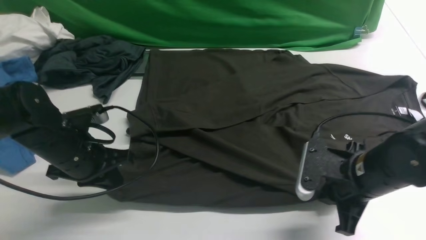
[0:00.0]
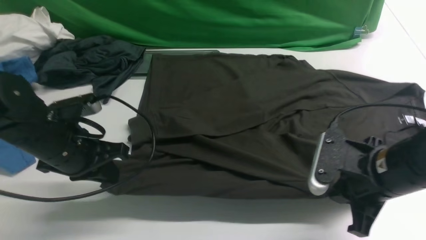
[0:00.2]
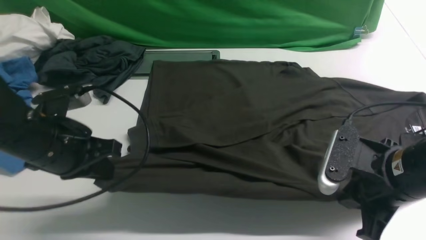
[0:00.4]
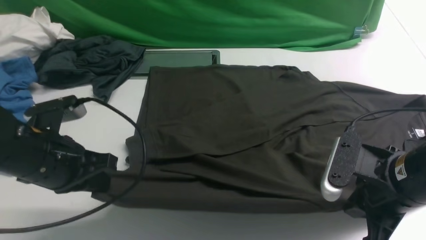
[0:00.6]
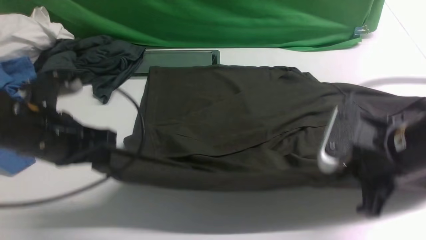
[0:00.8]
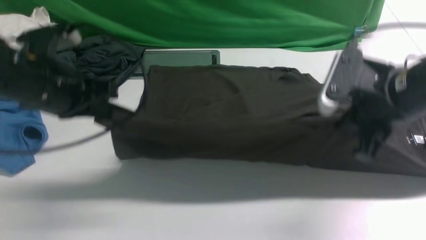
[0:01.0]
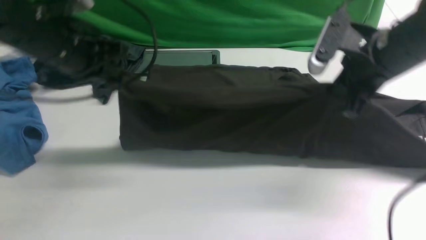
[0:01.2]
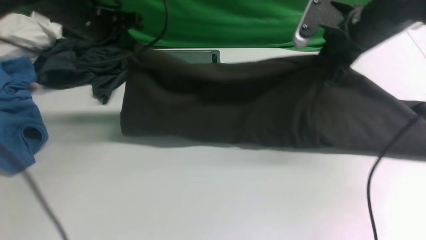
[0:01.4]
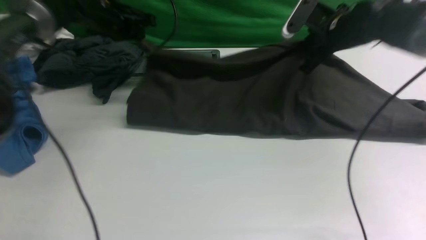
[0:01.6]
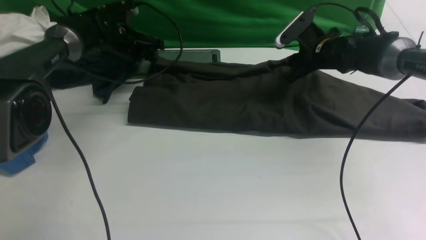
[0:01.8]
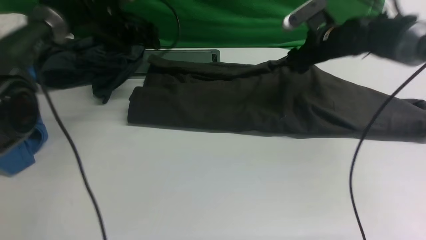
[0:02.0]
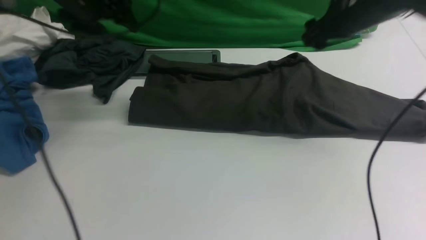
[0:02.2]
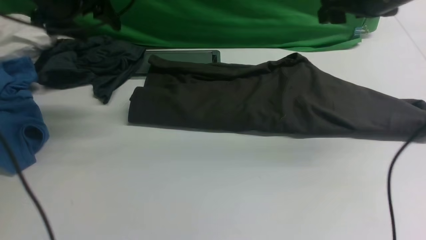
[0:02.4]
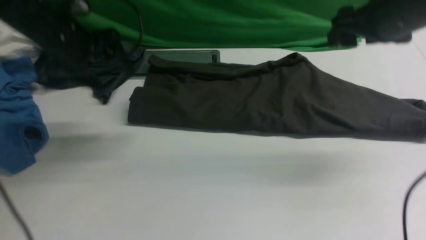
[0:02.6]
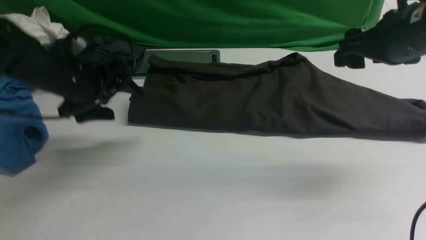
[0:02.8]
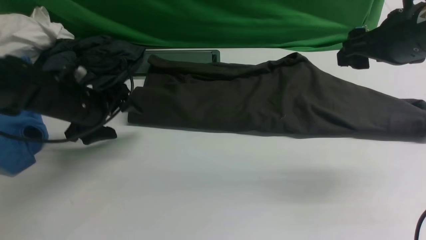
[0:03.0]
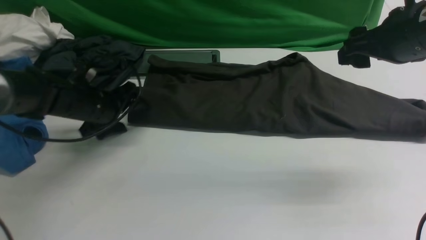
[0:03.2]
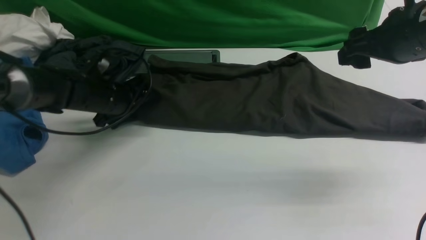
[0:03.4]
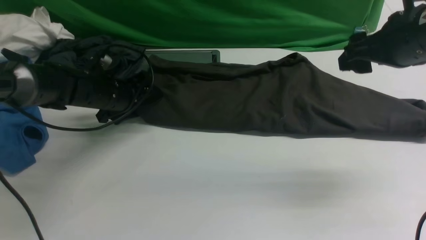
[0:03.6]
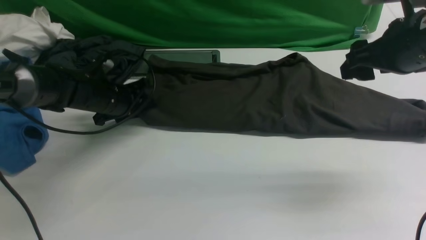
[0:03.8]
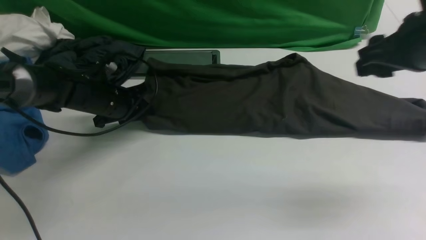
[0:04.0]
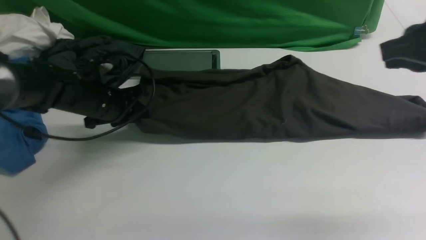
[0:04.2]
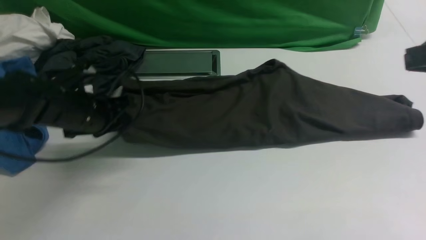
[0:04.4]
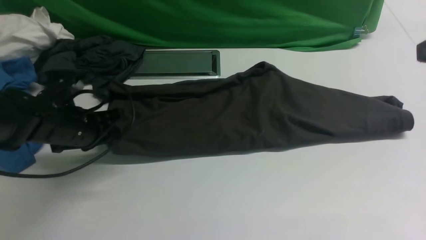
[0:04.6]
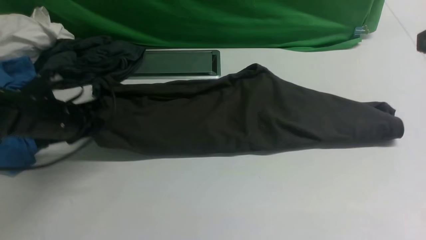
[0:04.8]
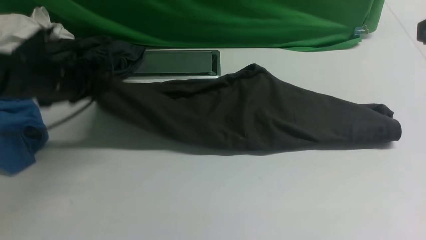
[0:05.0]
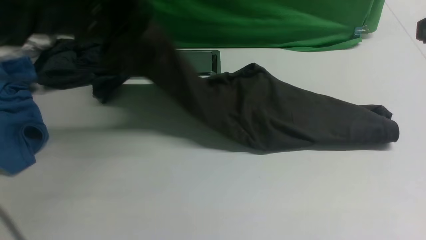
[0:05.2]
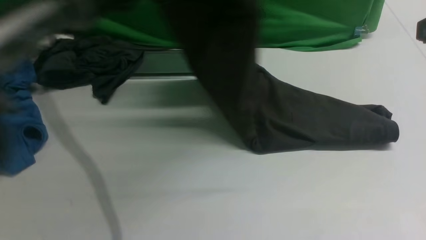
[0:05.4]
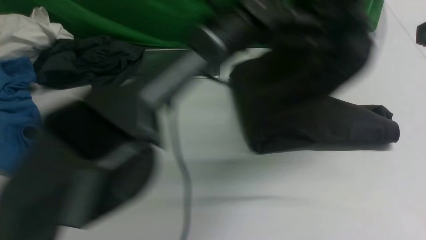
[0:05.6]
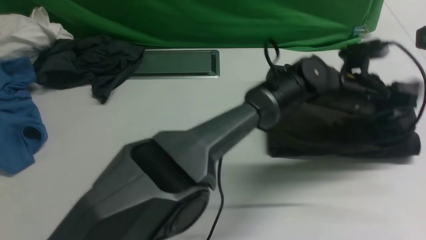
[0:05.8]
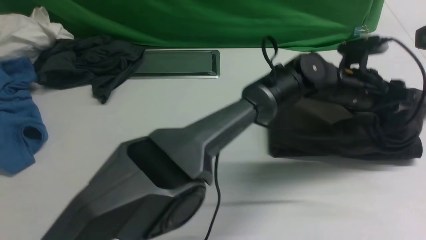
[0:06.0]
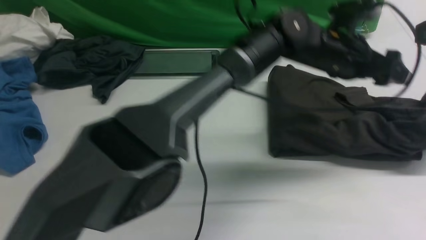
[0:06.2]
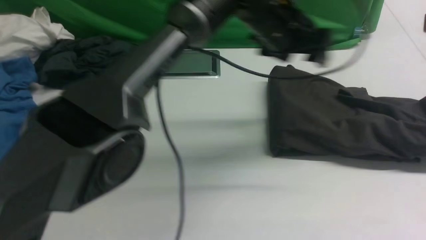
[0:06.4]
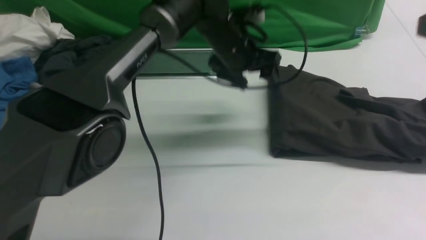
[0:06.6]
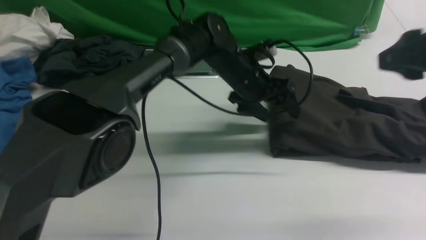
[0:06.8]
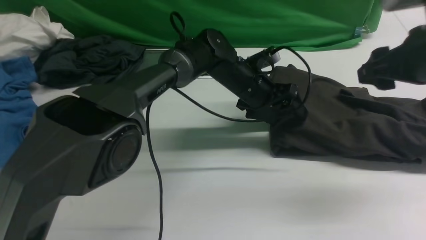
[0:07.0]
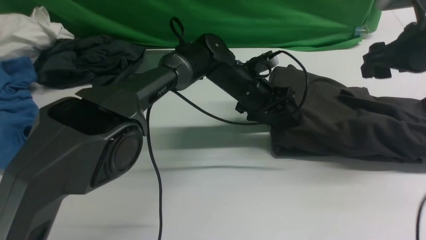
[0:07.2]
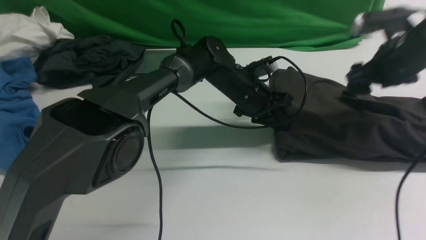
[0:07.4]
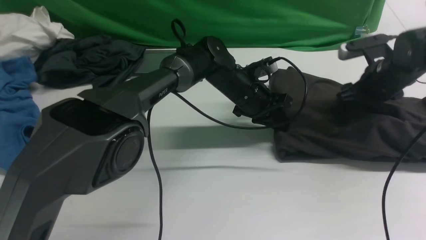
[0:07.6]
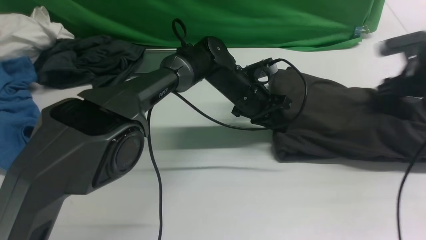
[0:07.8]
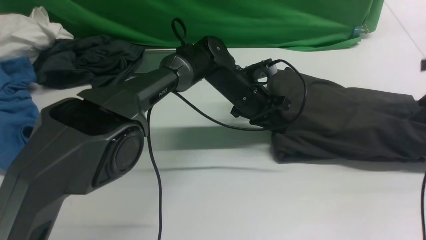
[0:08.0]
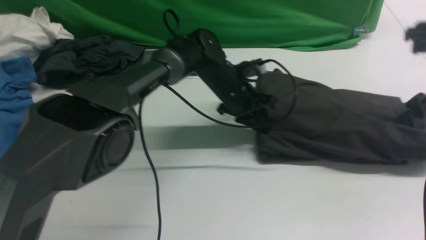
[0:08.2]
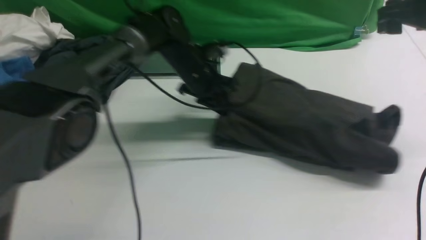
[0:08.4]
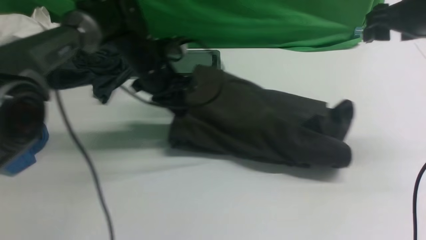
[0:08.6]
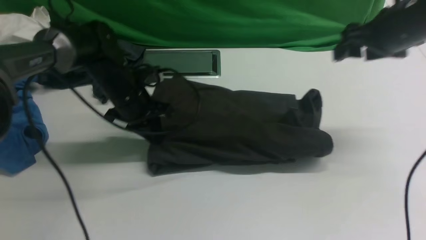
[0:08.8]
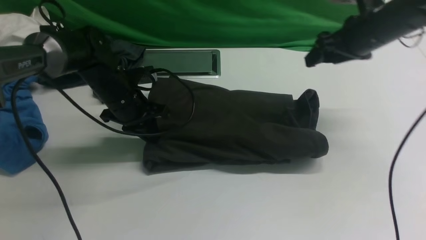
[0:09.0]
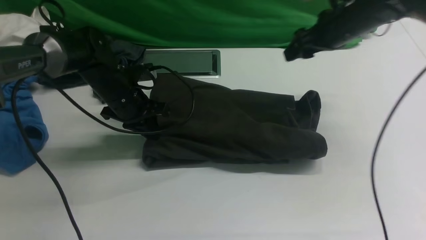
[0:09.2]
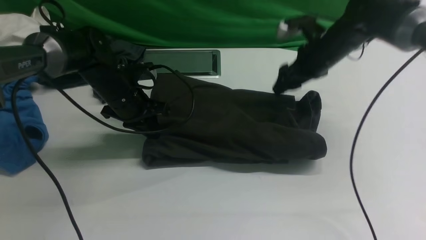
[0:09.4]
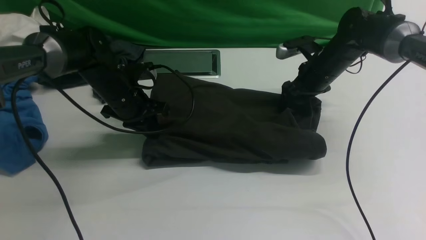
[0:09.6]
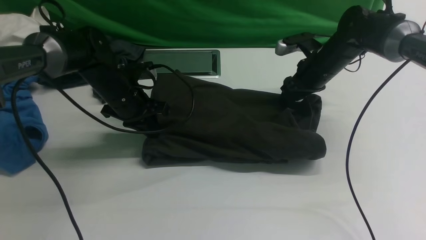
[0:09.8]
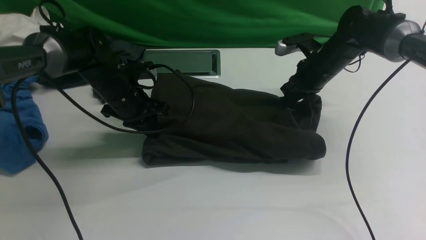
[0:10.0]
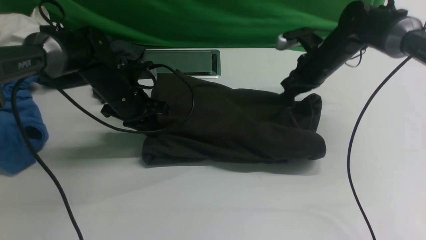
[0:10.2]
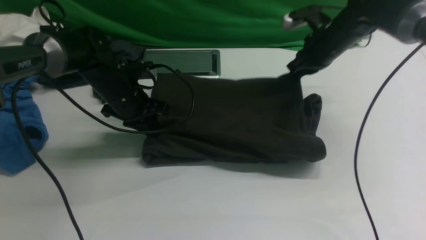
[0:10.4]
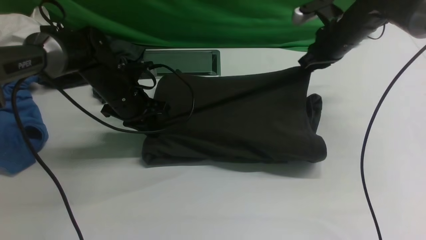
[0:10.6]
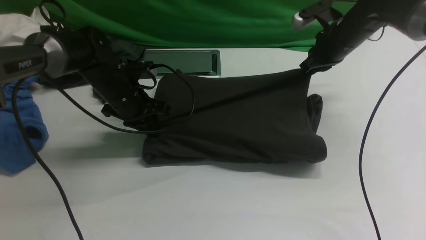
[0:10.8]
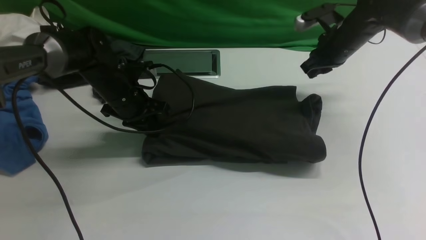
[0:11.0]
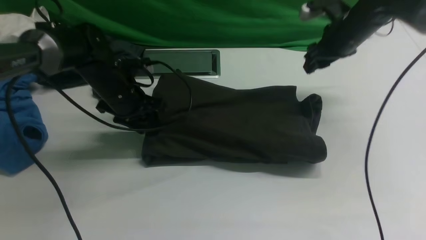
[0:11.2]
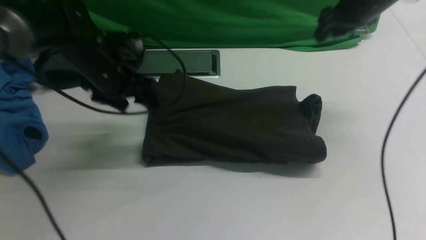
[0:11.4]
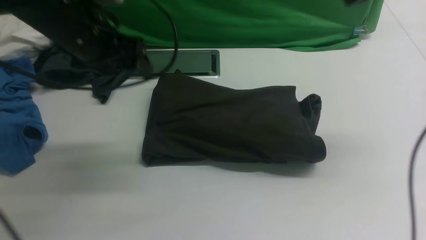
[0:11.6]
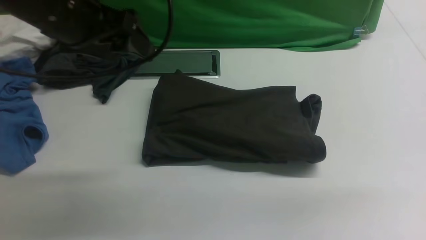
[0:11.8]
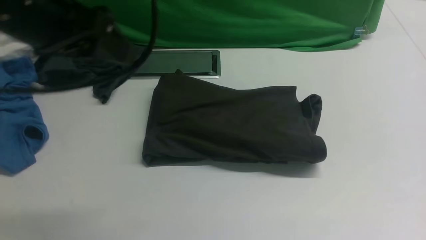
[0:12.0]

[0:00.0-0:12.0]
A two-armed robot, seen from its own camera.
Step, 0:00.4 to 0:02.4: use both arms to drag the lower edge of the fabric forward and fold it over the upper edge.
Step, 0:02.6 to 0:04.8: Hold the left edge of the fabric with your left arm.
Step, 0:05.0 to 0:06.0: Drag the left edge of the fabric to the left with your left arm and fold it to the right edge.
0:00.0 to 0:01.6: The two grippers go approximately 25 cm forward.
0:01.6 to 0:03.0: The right gripper travels backward and upward by approximately 20 cm, and opens its fingers. Meanwhile the left gripper heads backward, covering approximately 15 cm, and opens up.
0:03.0 to 0:04.4: The left gripper closes. The right gripper moves backward and upward, roughly 10 cm, and closes its fingers.
0:04.4 to 0:06.0: The left gripper shifts approximately 40 cm to the right, and opens its fingers.
0:06.0 to 0:07.6: The left gripper shifts approximately 15 cm to the left and downward, and closes up. The right gripper travels downward and forward by some 30 cm, and opens its fingers.
0:07.6 to 0:09.0: The right gripper travels to the left and upward by roughly 10 cm, while the left gripper shifts approximately 20 cm to the left.
0:09.0 to 0:10.4: The right gripper goes some 5 cm downward, and closes up.
0:10.4 to 0:12.0: The right gripper heads backward and upward, covering roughly 35 cm, and opens, then closes again. Meanwhile the left gripper goes some 30 cm upward and backward, and opens its fingers.

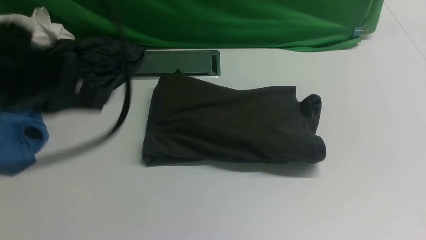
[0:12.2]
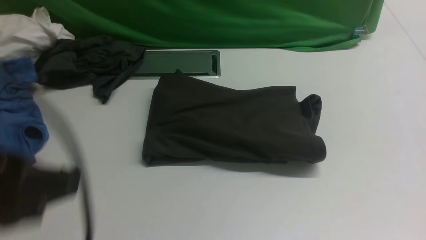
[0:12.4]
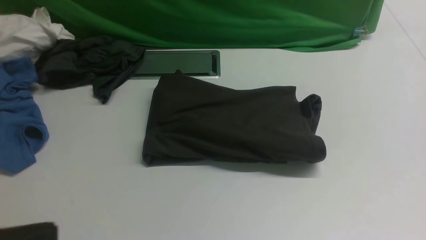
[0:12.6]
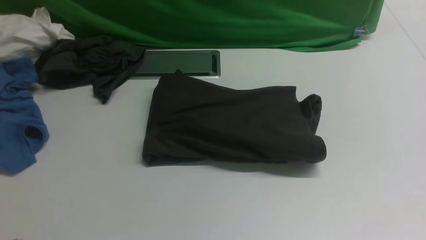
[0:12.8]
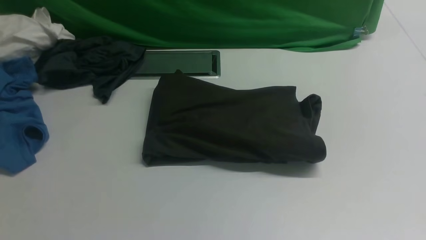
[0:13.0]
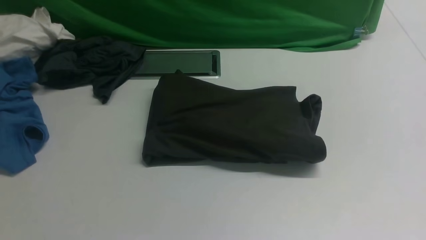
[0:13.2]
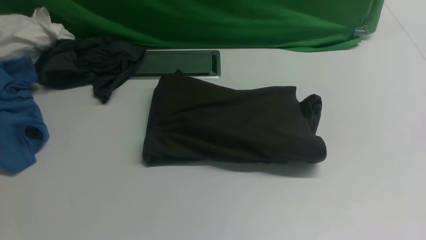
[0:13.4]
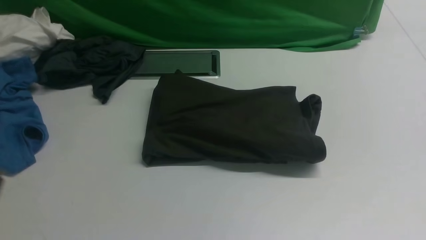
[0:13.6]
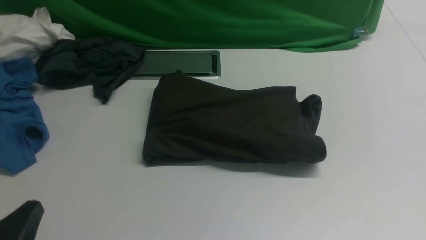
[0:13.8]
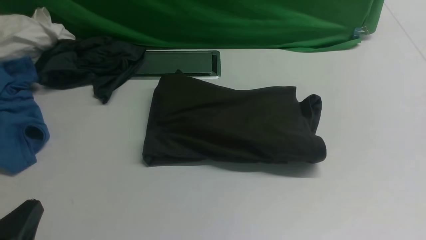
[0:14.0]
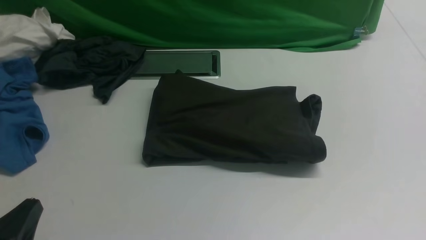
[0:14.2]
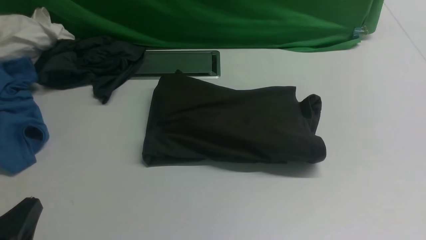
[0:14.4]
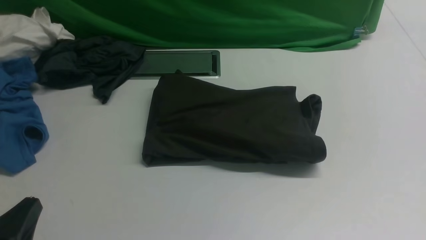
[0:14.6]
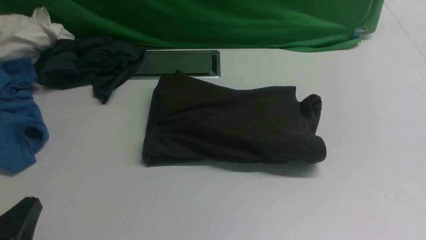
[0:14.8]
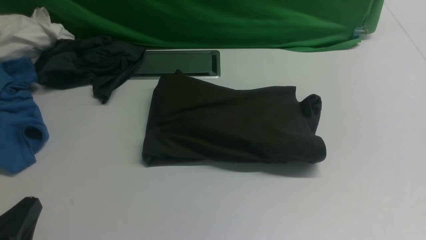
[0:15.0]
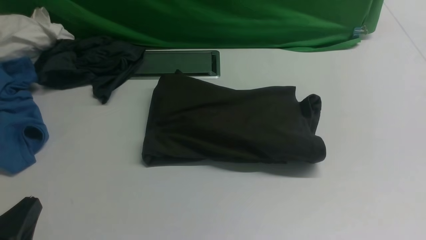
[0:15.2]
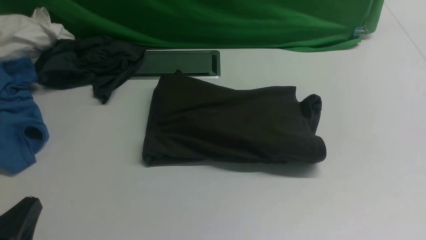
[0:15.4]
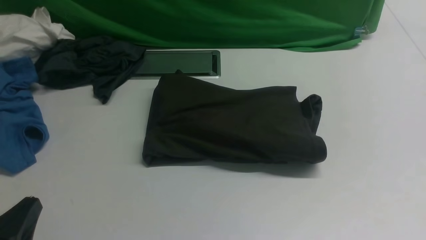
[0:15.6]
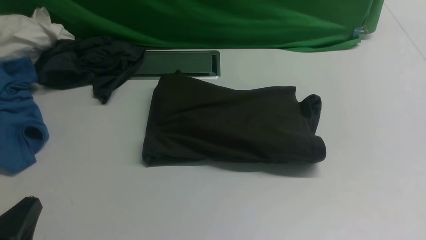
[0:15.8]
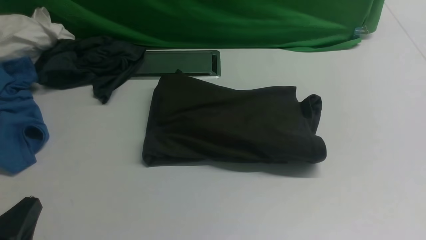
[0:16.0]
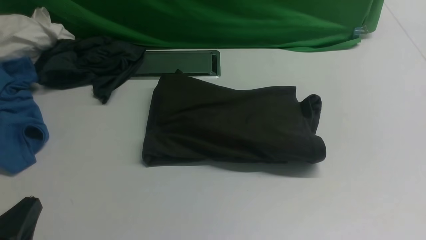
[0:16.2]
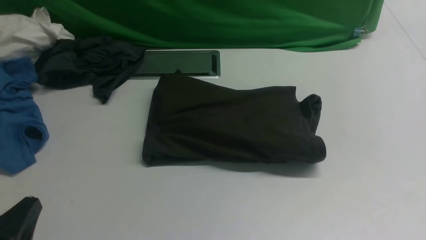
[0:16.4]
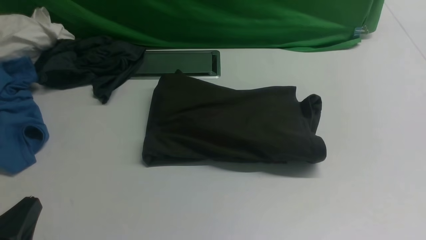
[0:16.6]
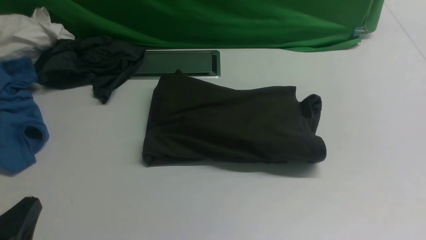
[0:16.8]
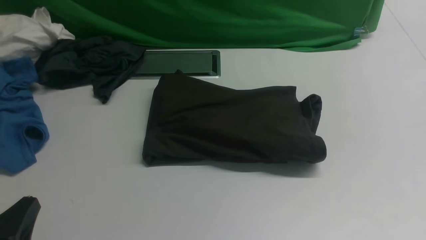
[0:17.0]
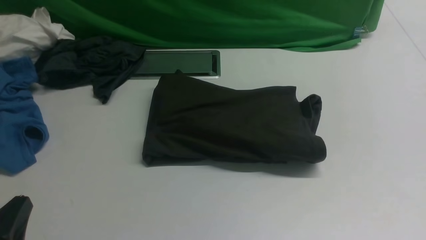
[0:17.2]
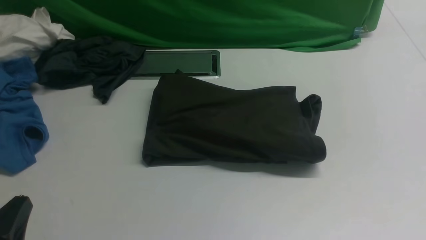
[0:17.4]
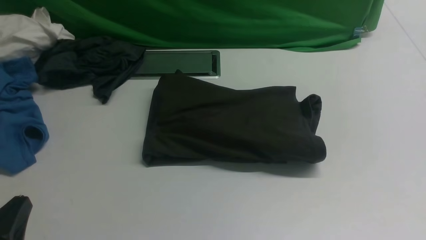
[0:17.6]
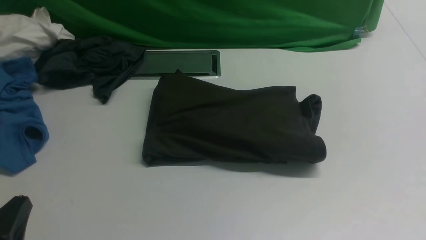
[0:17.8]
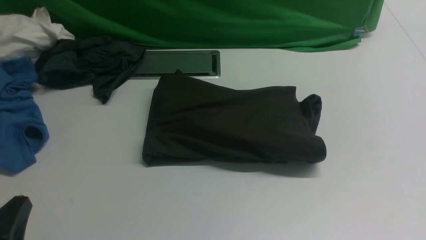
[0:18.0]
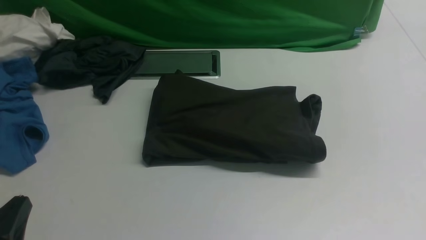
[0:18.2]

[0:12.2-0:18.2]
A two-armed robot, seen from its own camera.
0:12.2 to 0:13.8: The left gripper moves downward and backward, roughly 20 cm.
0:16.6 to 0:18.2: Both grippers stay put.
